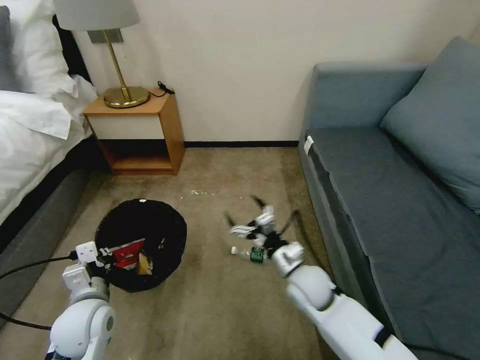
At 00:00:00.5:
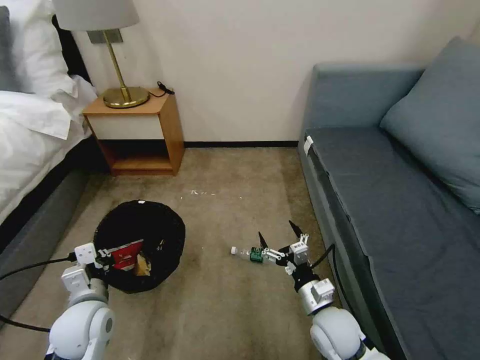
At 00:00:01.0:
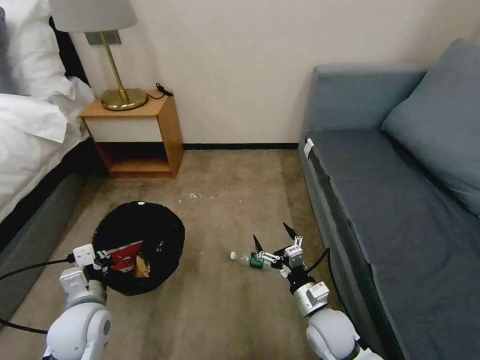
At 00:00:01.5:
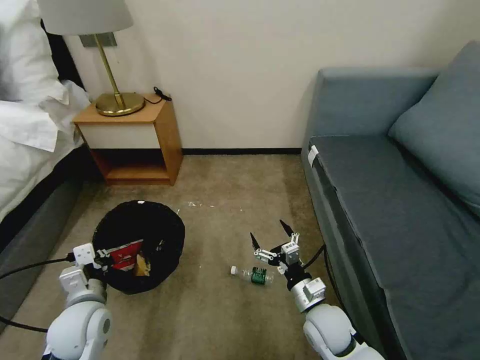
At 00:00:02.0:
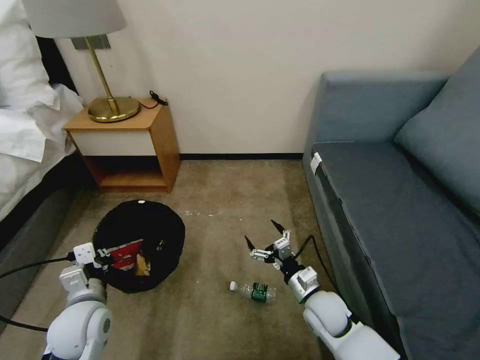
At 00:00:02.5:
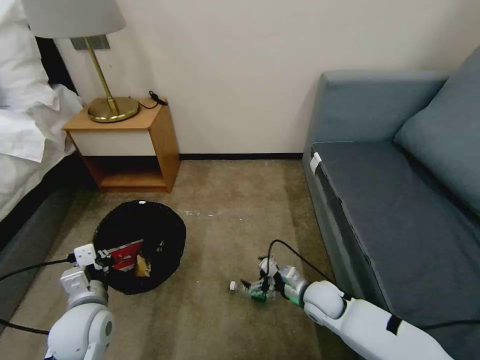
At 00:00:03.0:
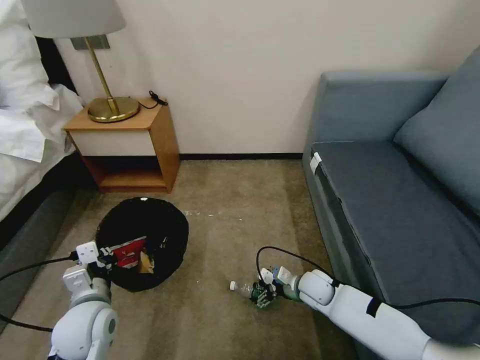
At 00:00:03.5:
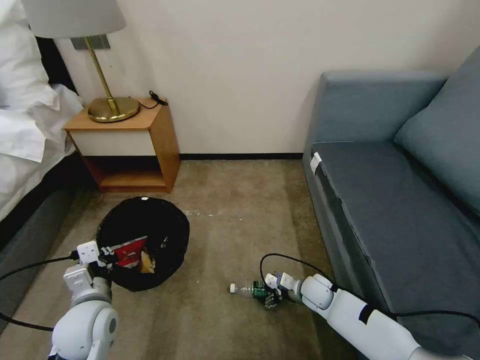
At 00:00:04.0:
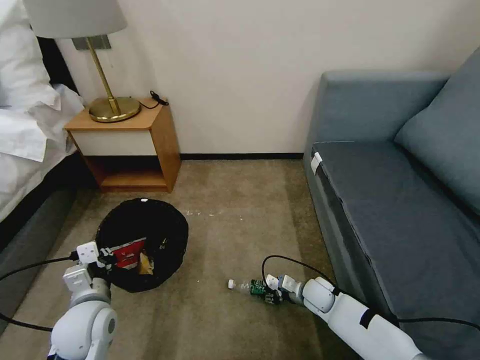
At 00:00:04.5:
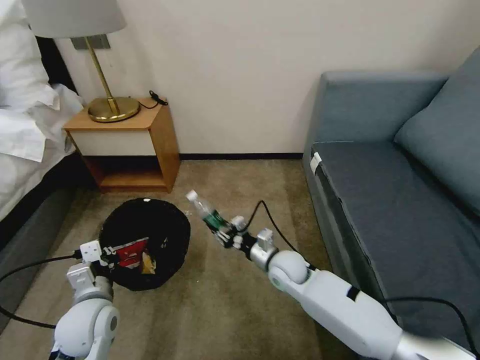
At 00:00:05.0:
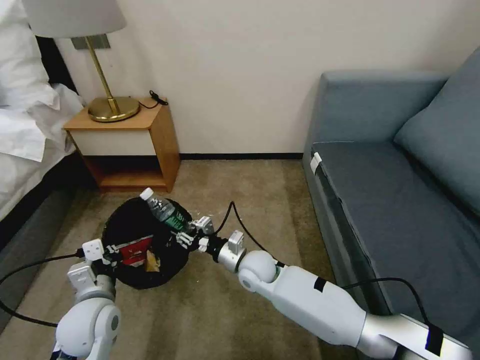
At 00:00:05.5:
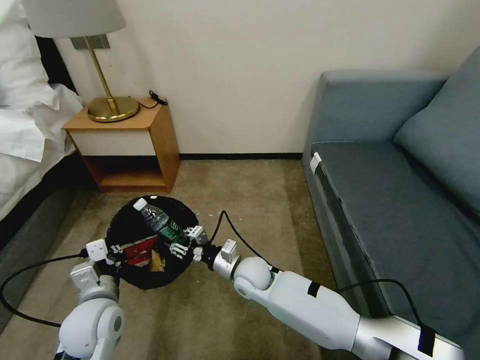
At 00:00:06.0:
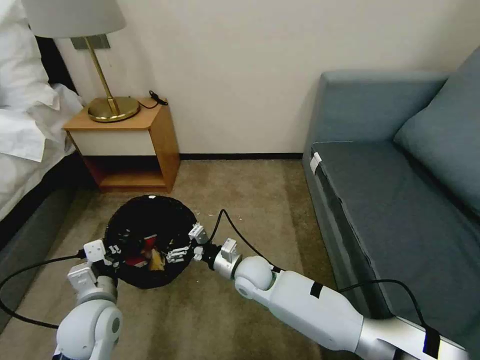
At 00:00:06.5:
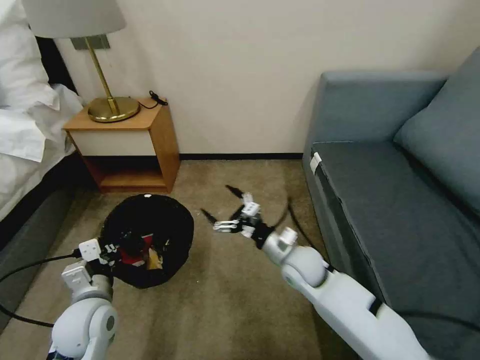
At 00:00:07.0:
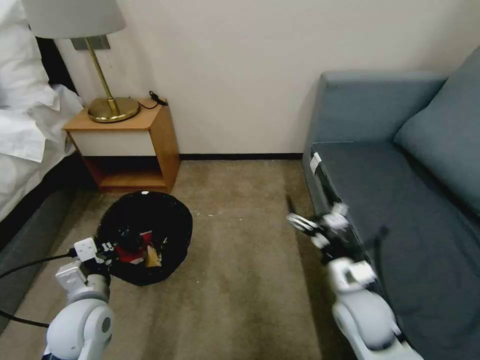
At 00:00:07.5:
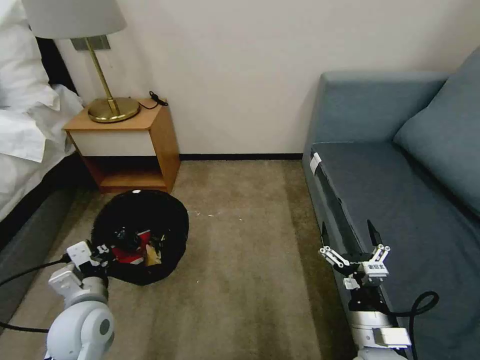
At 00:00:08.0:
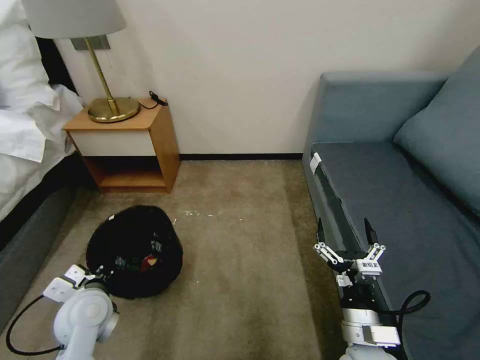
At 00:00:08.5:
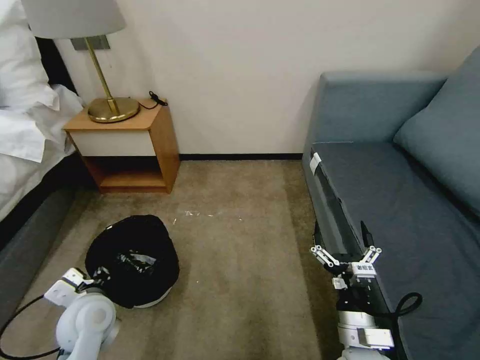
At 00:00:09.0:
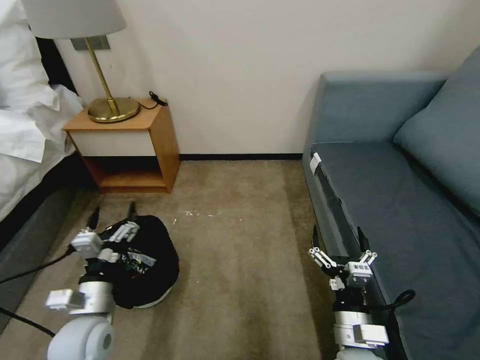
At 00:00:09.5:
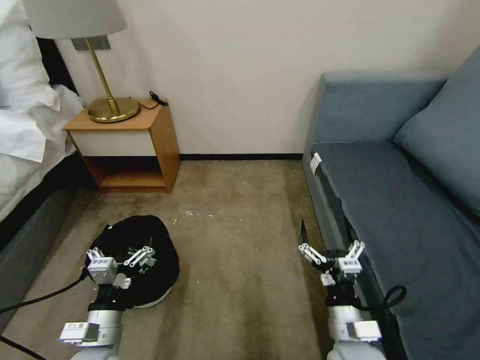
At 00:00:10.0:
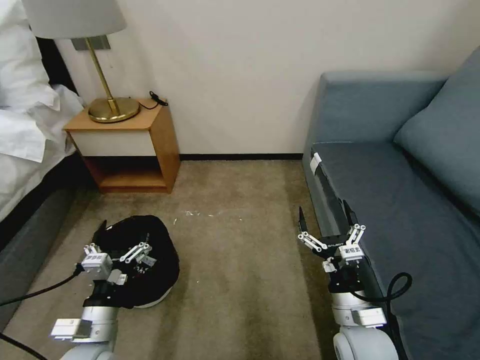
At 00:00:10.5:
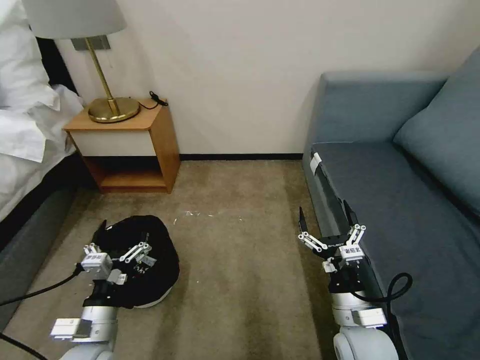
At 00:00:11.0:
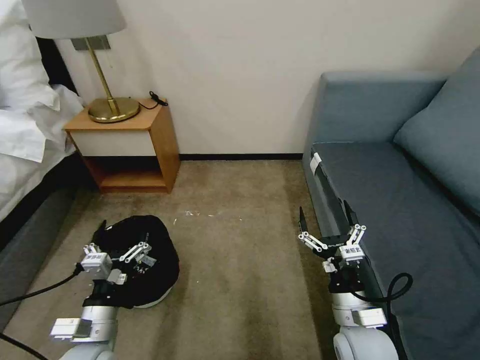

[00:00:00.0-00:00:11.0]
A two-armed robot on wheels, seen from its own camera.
Task of the whole recording: Pick up the trash bin, then pick up the garbage on the floor and place it into the trash bin.
00:00:00.0 to 00:00:02.0: The right gripper heads to the right and downward, covering some 10 cm.
00:00:02.0 to 00:00:03.5: The right gripper moves downward and forward, roughly 10 cm.
00:00:03.5 to 00:00:05.5: The right gripper is displaced to the left and upward by roughly 25 cm, and closes.
00:00:05.5 to 00:00:07.5: The right gripper shifts some 30 cm to the right and backward, and opens.
00:00:07.5 to 00:00:09.0: The left gripper opens up.
00:00:09.0 to 00:00:11.0: The grippers make only small movements.
